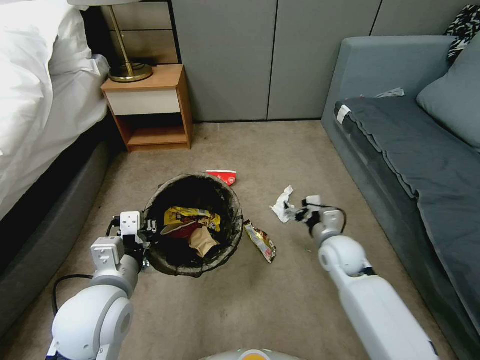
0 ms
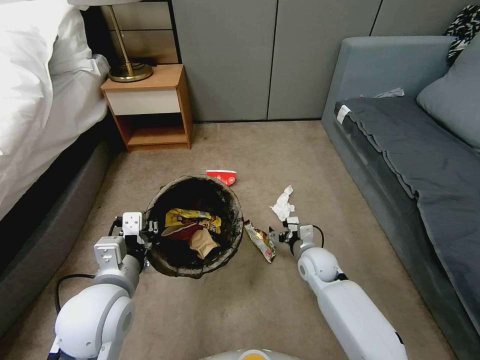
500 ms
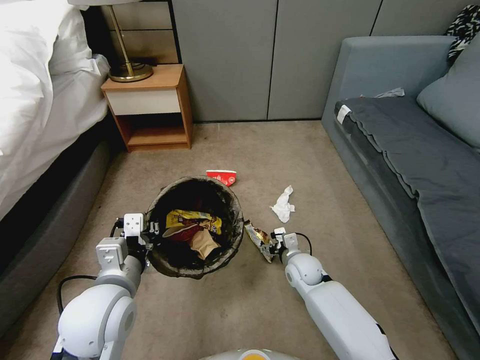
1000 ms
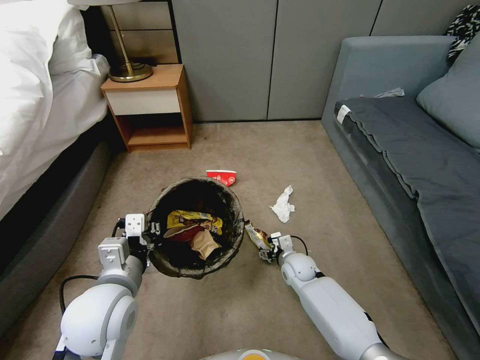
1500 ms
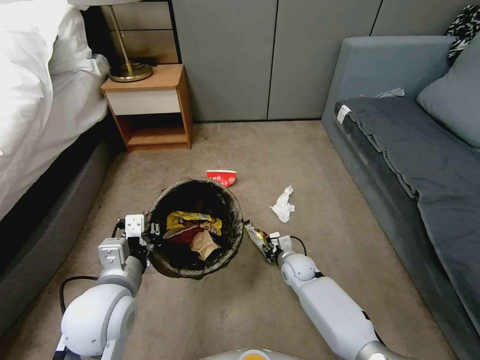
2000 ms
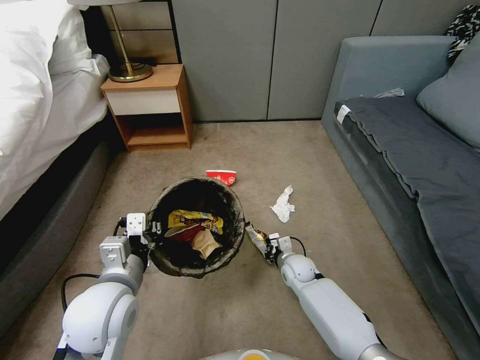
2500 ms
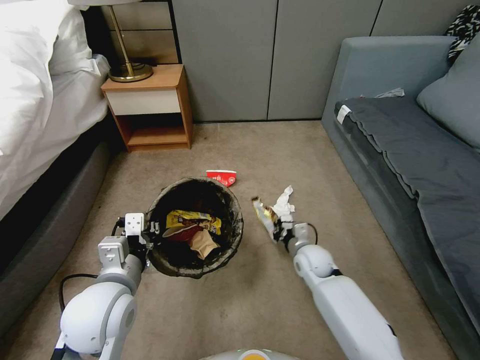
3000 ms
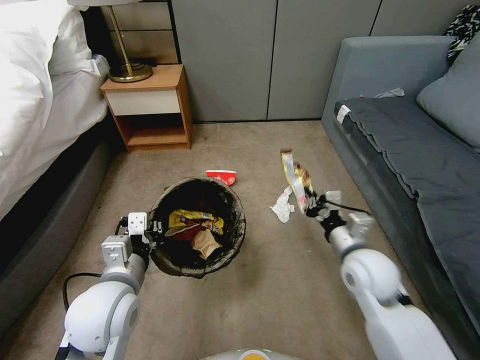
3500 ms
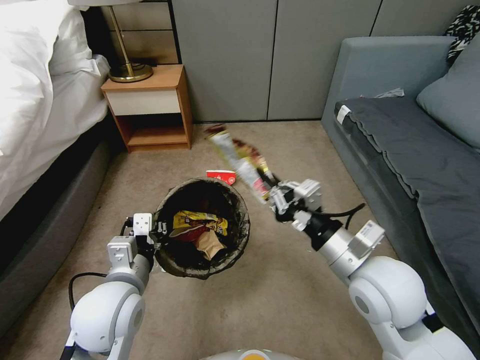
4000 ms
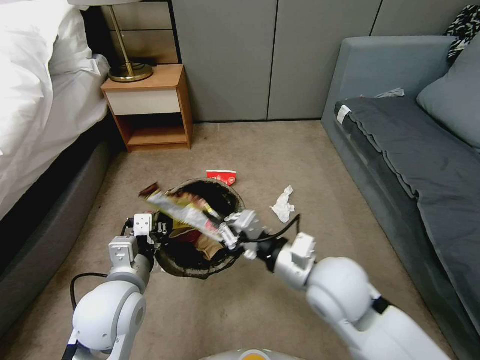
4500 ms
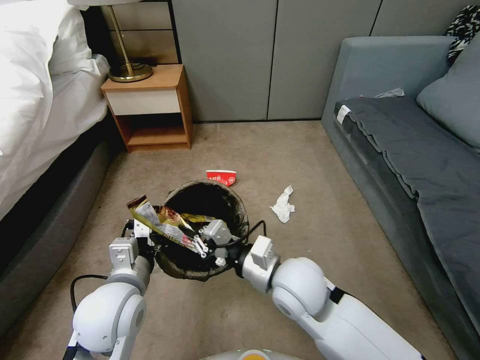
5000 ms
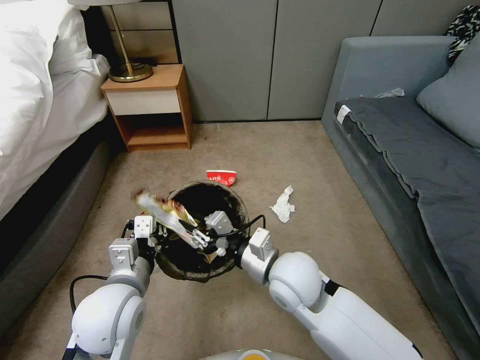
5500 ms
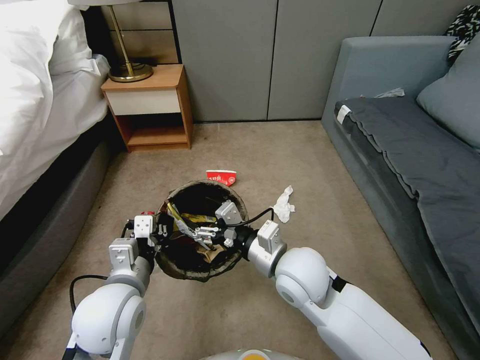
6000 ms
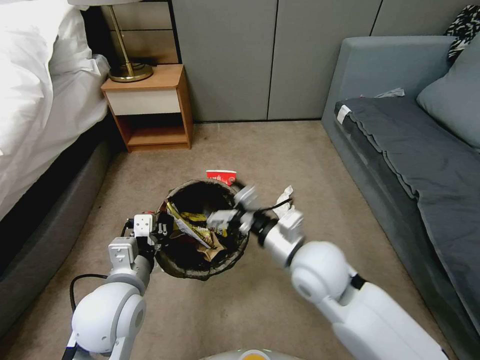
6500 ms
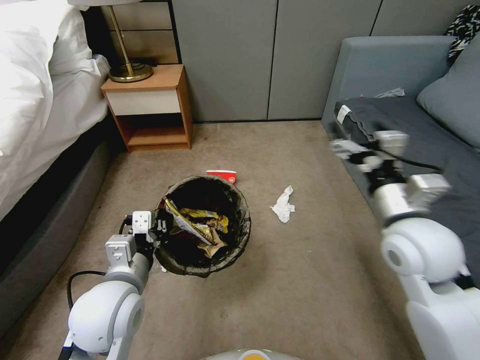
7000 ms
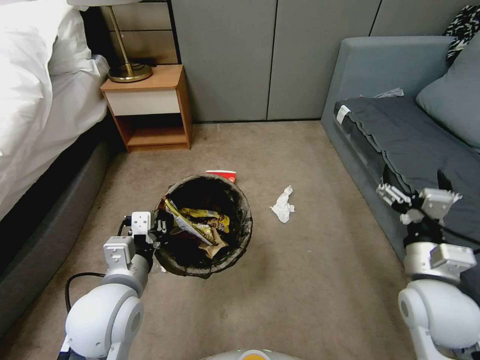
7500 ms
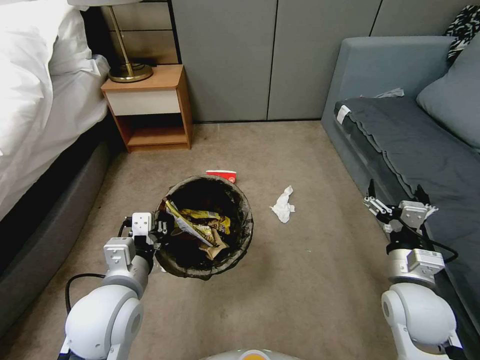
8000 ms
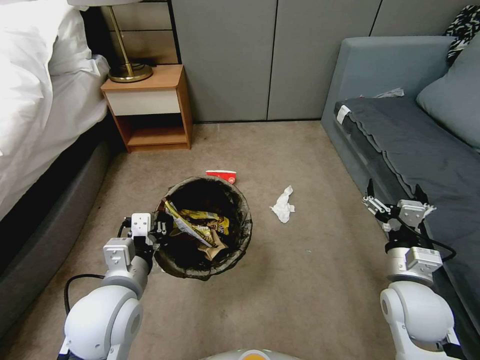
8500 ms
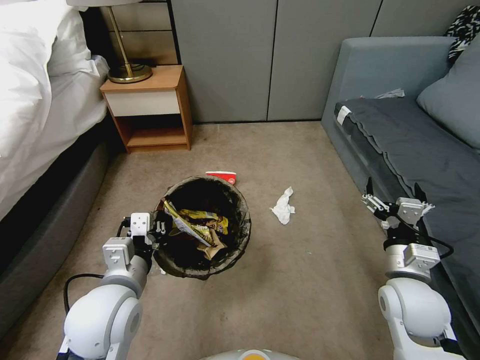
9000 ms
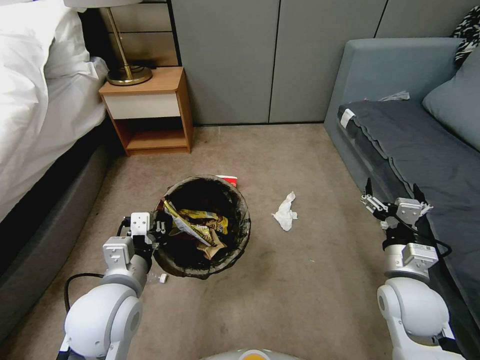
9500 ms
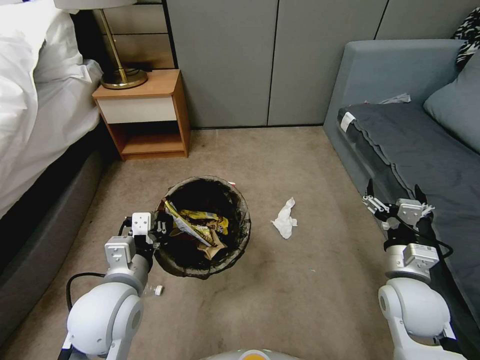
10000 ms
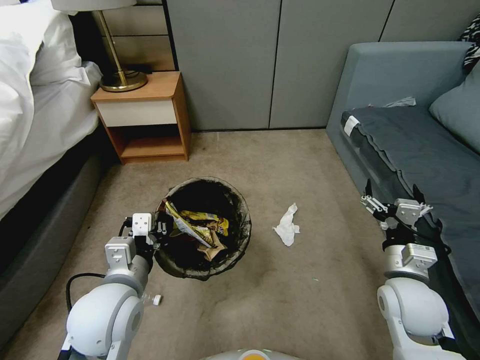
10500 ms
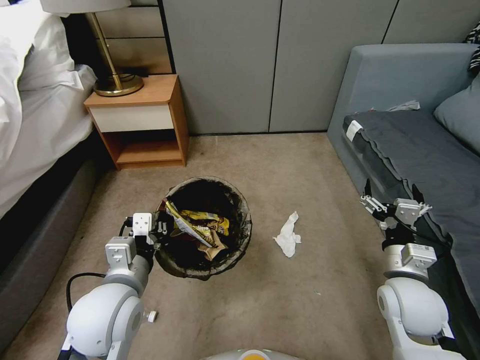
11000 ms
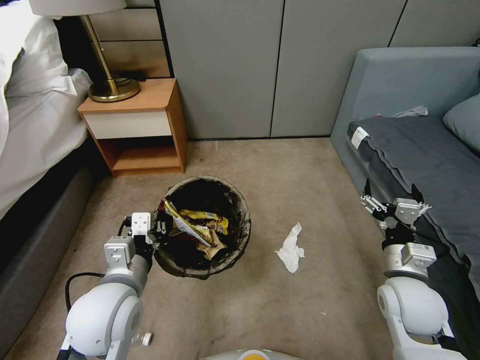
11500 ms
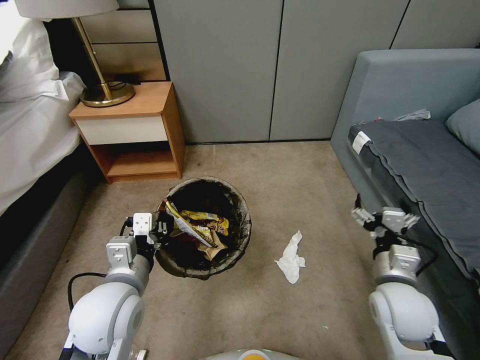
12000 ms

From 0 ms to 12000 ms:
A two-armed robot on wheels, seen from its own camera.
Task of the whole recording: Pick up the trash bin, then pick up the garbage from the floor and place it into the trash bin.
From 0 ms to 2000 ms: The right gripper goes approximately 20 cm downward and to the left, and closes.
From 2000 ms to 4000 ms: The right gripper shifts about 35 cm upward and backward, and closes up.
From 4000 ms to 6000 ms: The right gripper heads to the left and downward, covering approximately 10 cm, and opens up.
From 6000 ms to 8000 ms: The right gripper moves to the right, about 20 cm.
From 8000 ms to 10000 ms: Neither gripper changes place.

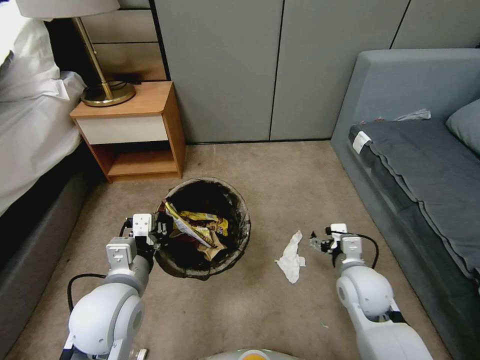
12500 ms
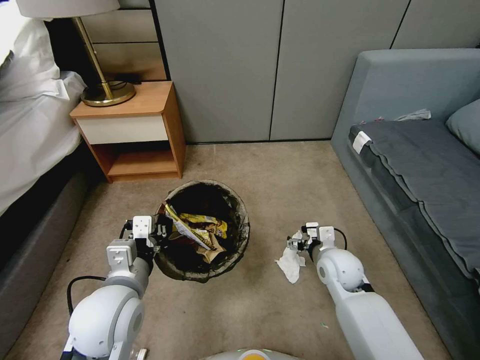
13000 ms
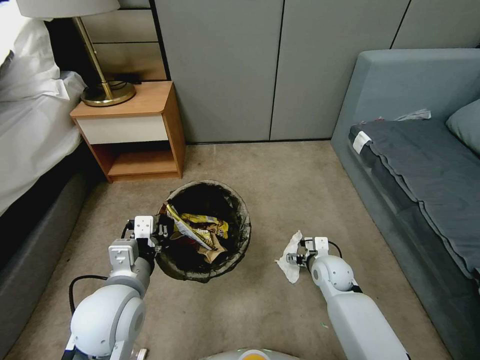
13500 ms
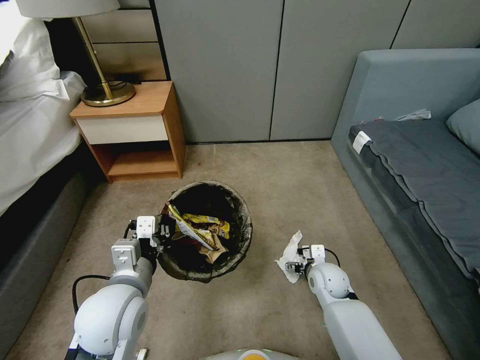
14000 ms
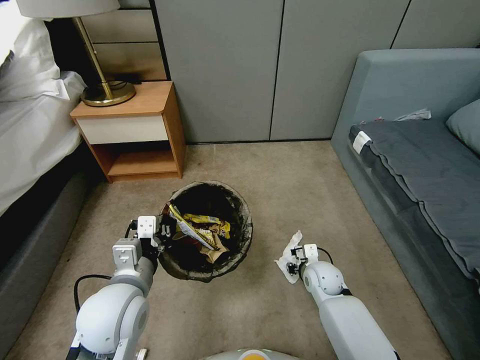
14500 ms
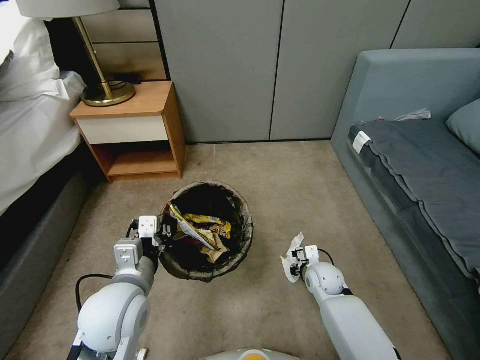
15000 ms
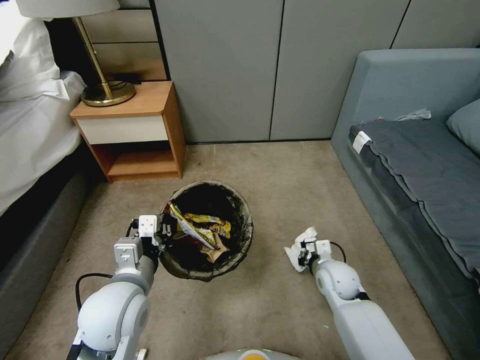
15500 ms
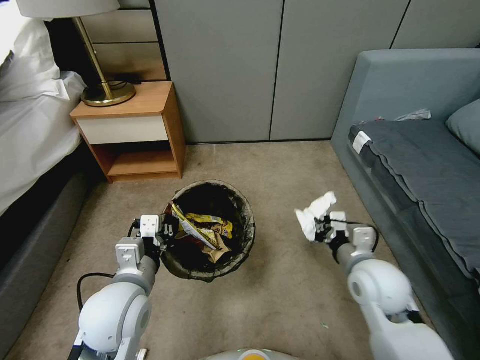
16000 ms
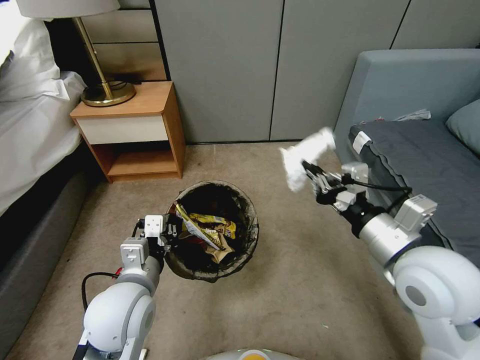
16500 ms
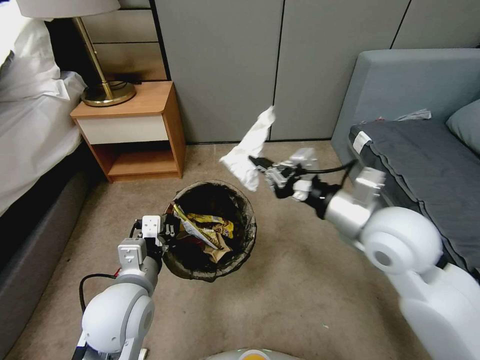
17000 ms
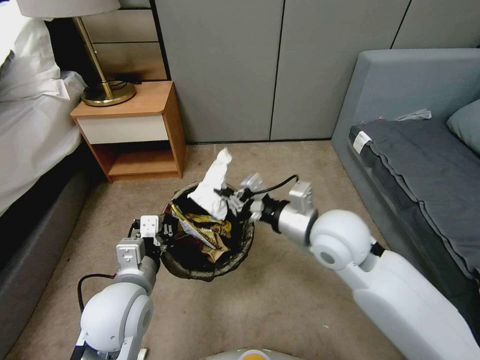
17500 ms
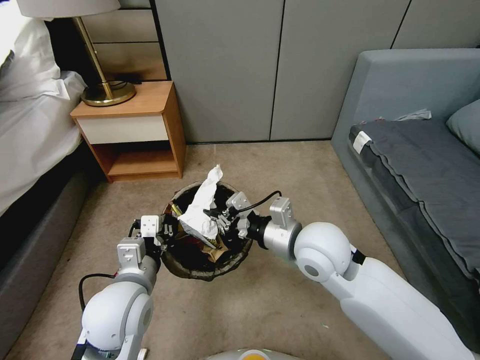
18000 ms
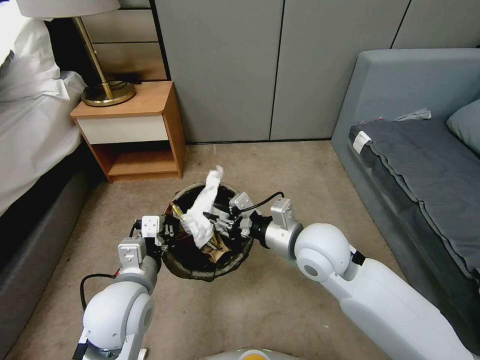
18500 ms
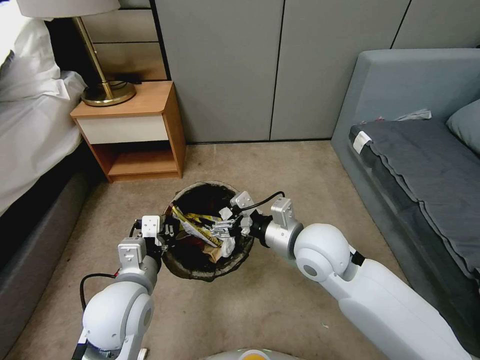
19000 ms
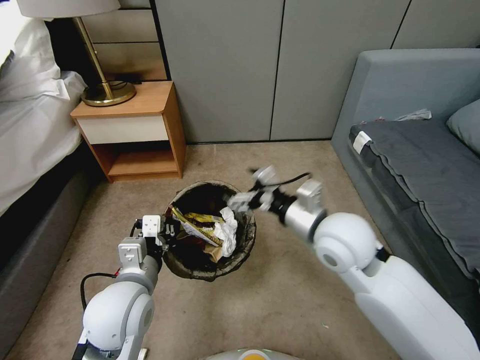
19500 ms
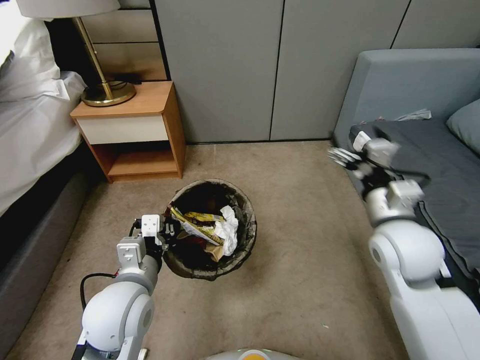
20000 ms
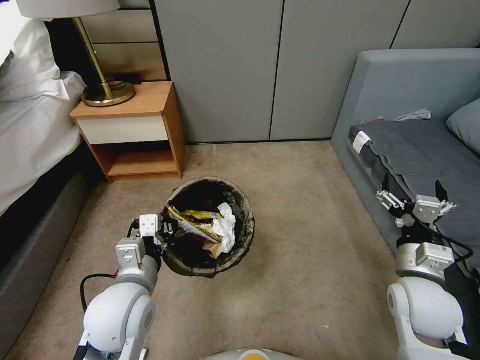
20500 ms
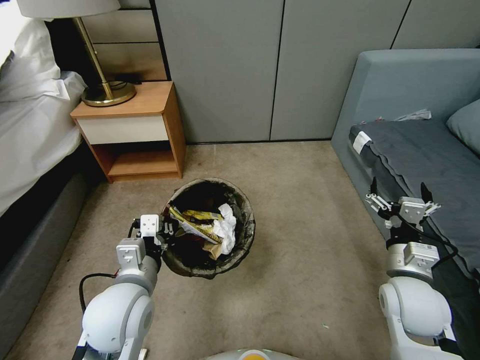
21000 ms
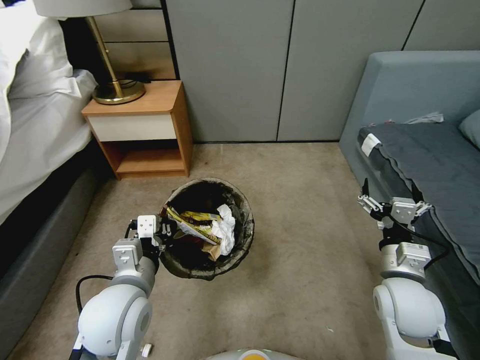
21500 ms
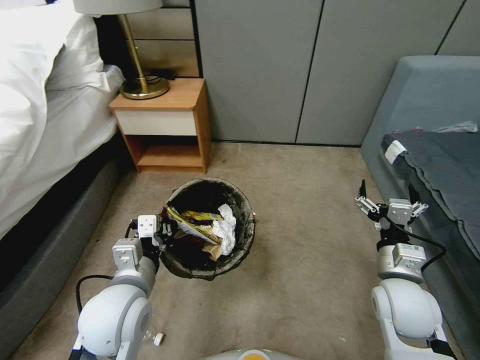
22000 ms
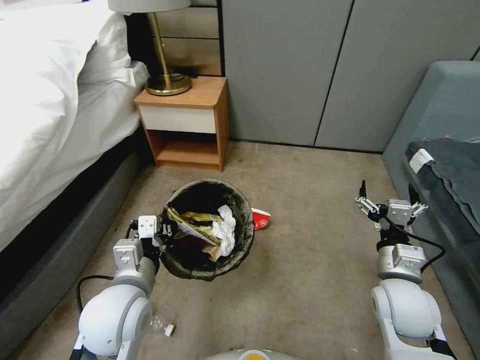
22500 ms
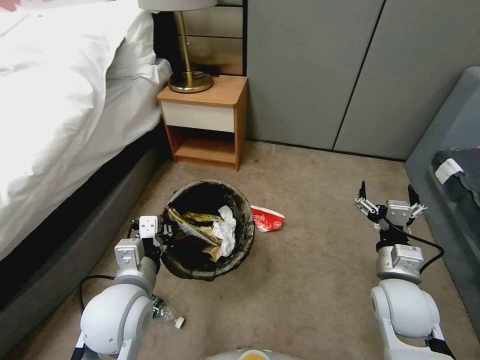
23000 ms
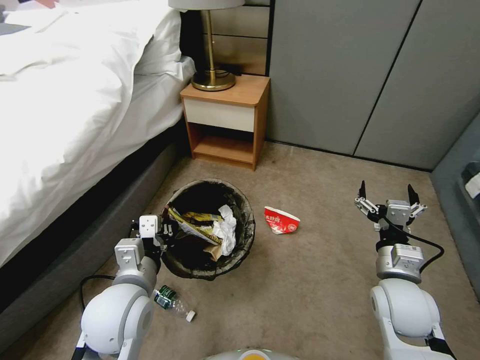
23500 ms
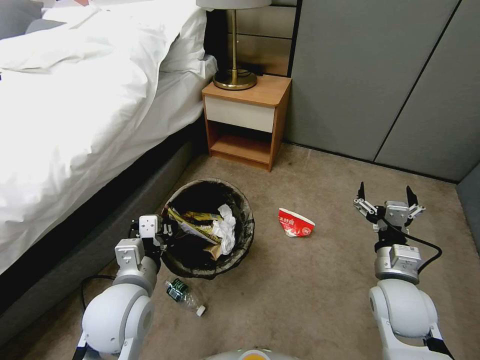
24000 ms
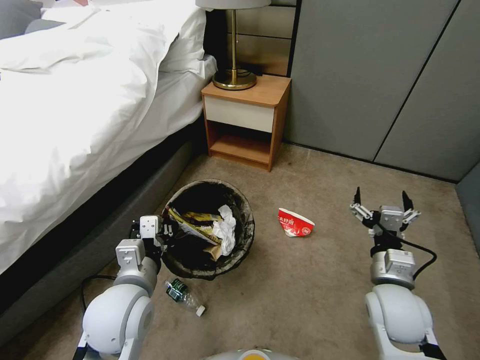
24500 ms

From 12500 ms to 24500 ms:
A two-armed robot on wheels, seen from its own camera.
Task of the whole recording: Pick up the trash bin, then pick up the garbage from the floor and place it into the trash bin.
From 12500 ms to 14500 ms: The right gripper shifts approximately 15 cm downward and forward, and closes up.
From 14500 ms to 16500 ms: The right gripper shifts some 35 cm upward.
From 16500 ms to 18500 ms: The right gripper is displaced to the left, forward and downward by roughly 15 cm, and opens up.
From 18500 ms to 20500 ms: The right gripper travels to the right by approximately 20 cm, and opens up.

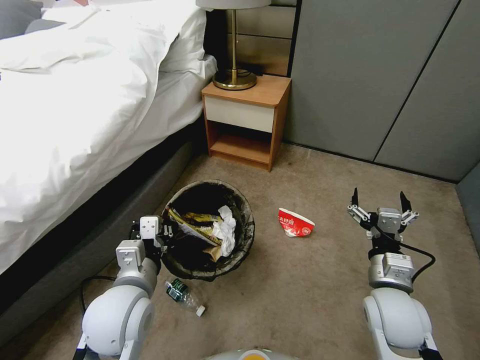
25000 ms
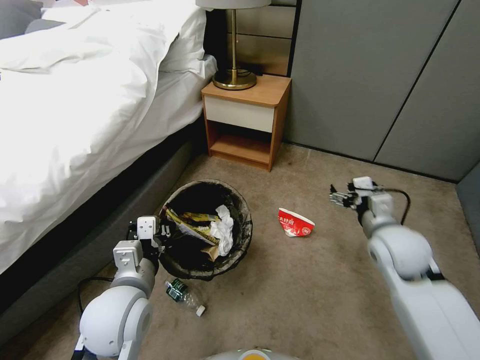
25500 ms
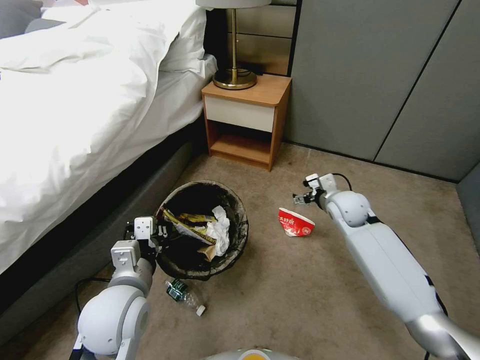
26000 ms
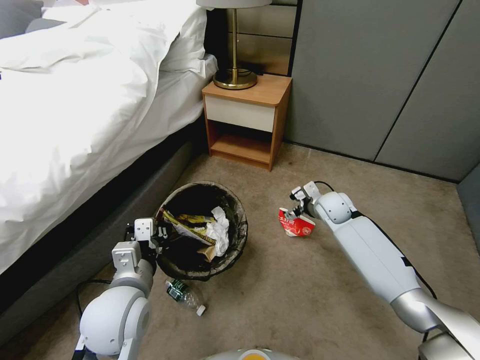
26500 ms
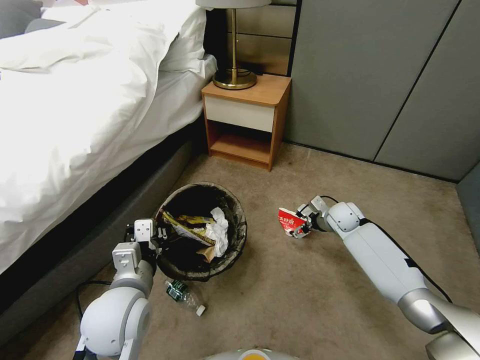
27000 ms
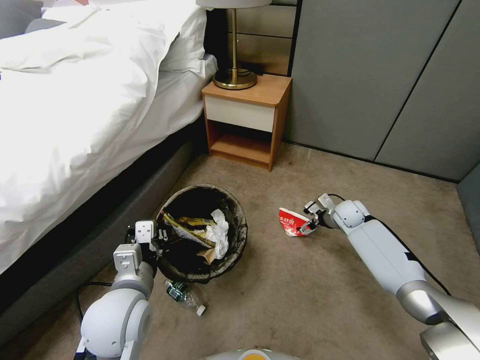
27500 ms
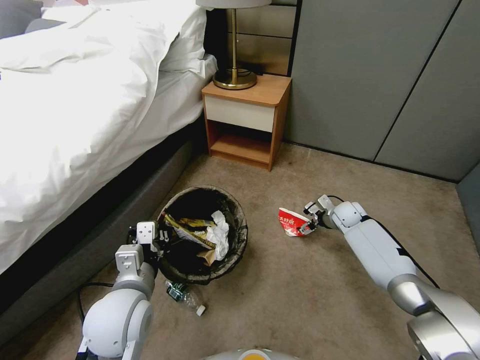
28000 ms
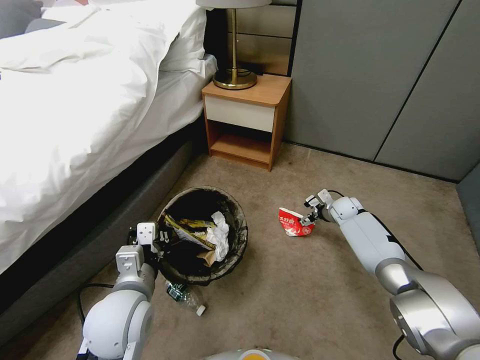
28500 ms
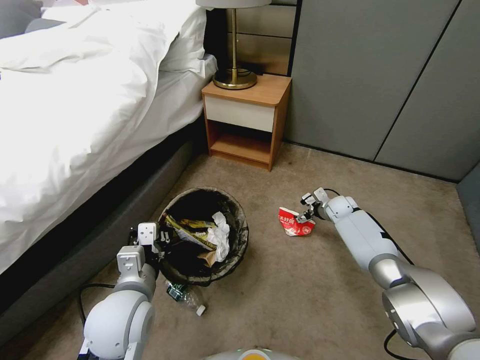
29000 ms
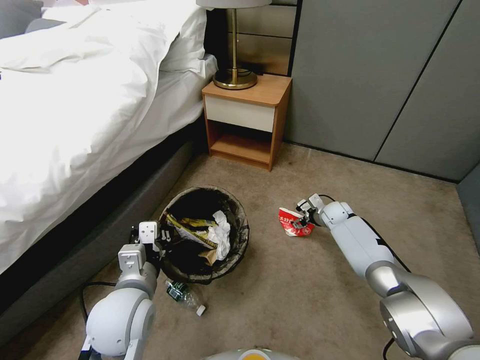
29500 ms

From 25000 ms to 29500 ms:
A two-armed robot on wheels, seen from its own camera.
Task of the whole recording: Pick up the trash bin, then pick up the garbage from the floor and place it into the trash bin.
From 25000 ms to 27000 ms: The right gripper is displaced forward by some 25 cm.
From 27000 ms to 29500 ms: The right gripper shifts by some 5 cm.
